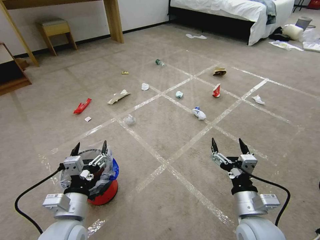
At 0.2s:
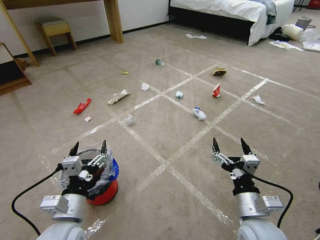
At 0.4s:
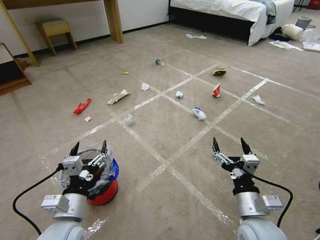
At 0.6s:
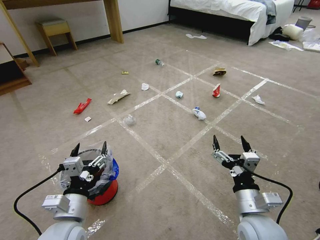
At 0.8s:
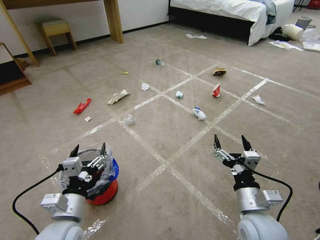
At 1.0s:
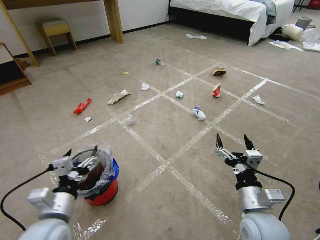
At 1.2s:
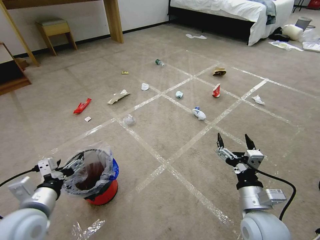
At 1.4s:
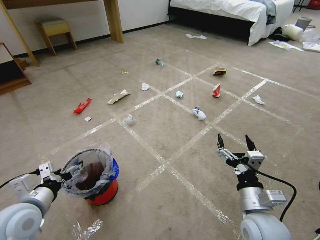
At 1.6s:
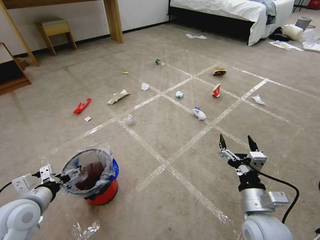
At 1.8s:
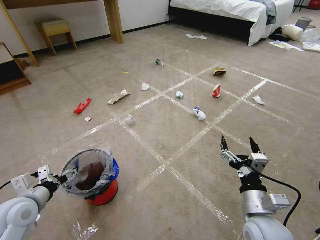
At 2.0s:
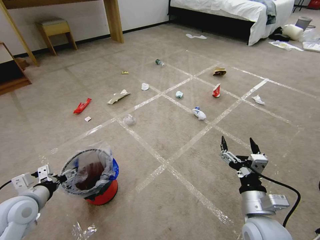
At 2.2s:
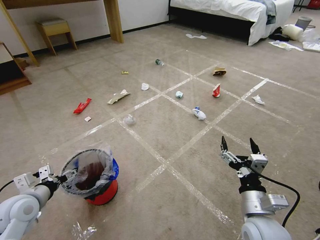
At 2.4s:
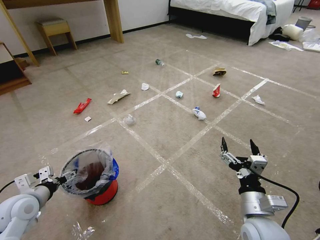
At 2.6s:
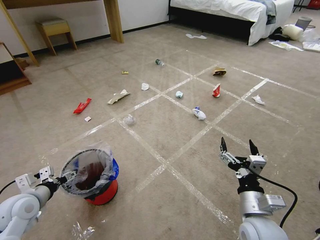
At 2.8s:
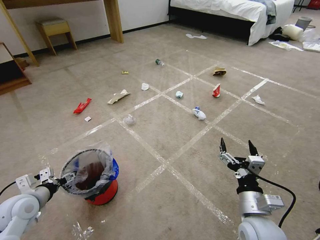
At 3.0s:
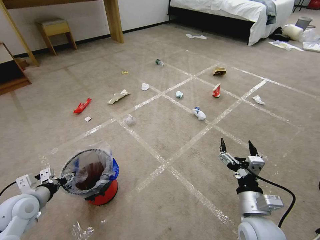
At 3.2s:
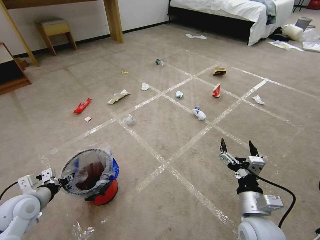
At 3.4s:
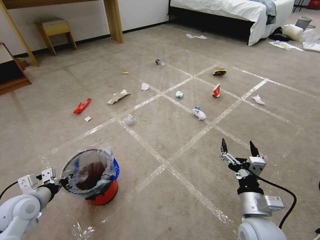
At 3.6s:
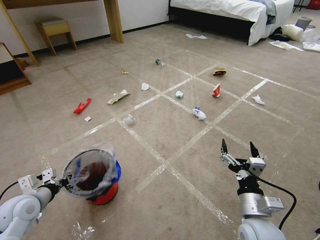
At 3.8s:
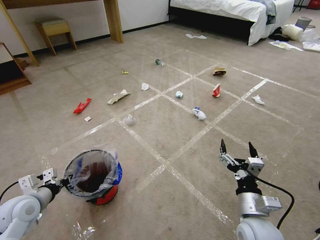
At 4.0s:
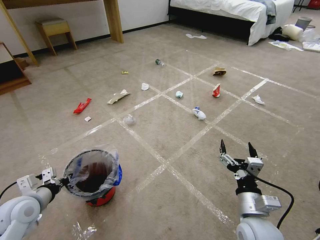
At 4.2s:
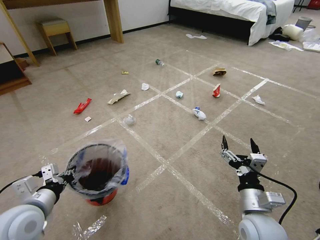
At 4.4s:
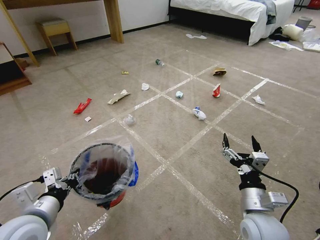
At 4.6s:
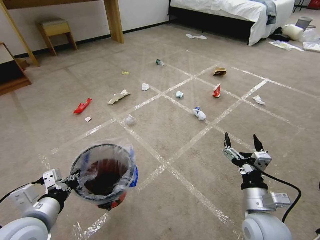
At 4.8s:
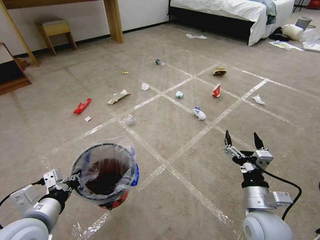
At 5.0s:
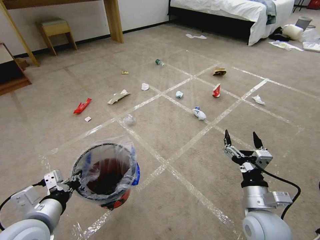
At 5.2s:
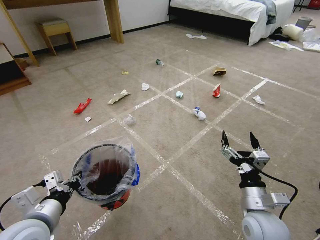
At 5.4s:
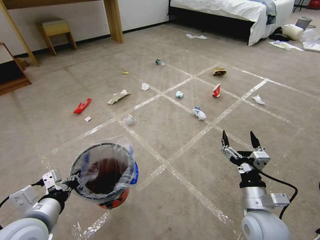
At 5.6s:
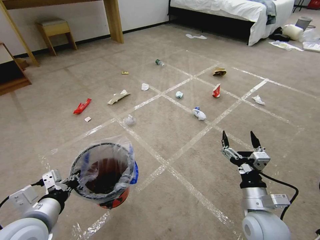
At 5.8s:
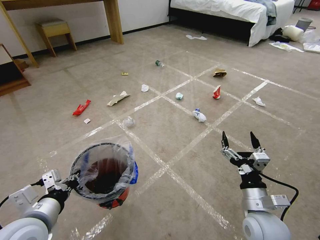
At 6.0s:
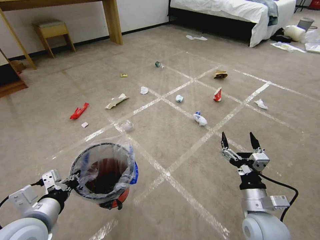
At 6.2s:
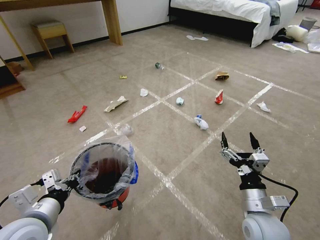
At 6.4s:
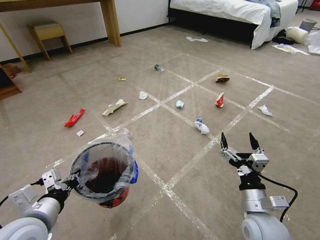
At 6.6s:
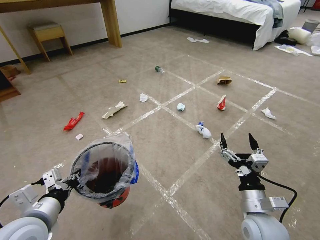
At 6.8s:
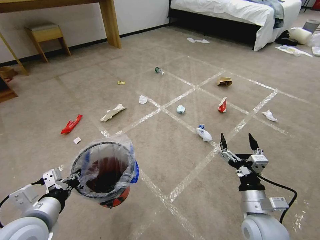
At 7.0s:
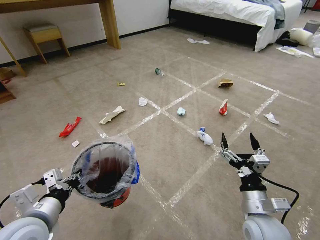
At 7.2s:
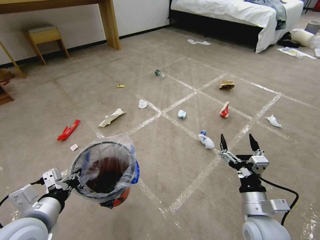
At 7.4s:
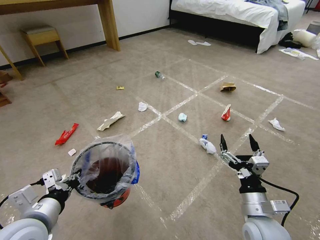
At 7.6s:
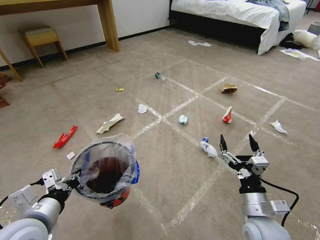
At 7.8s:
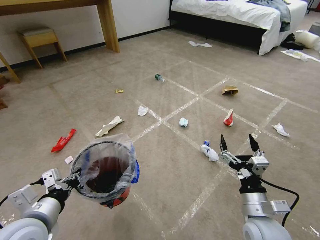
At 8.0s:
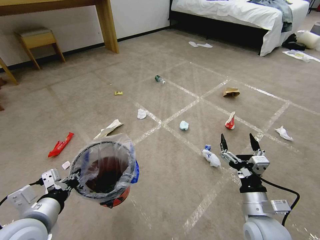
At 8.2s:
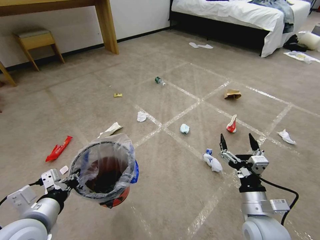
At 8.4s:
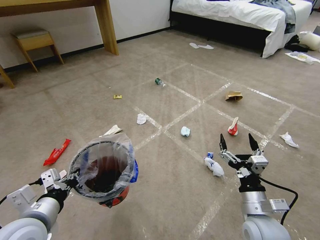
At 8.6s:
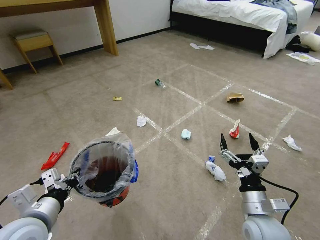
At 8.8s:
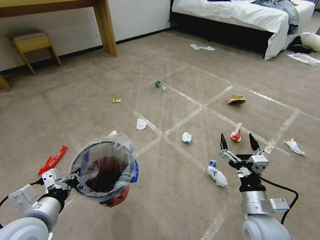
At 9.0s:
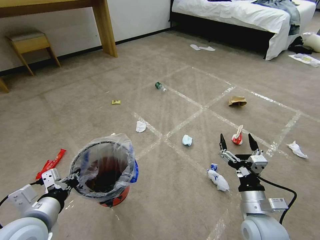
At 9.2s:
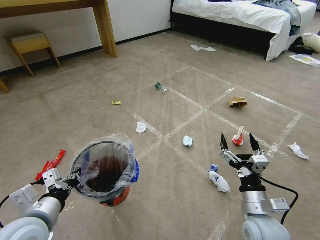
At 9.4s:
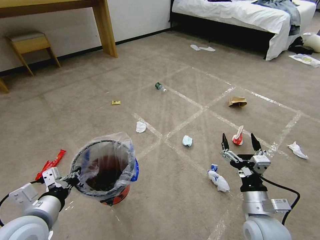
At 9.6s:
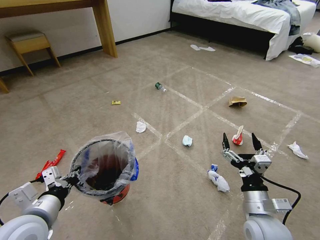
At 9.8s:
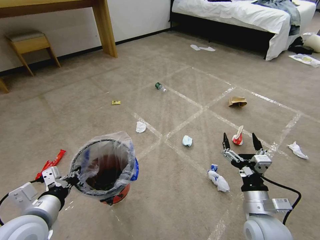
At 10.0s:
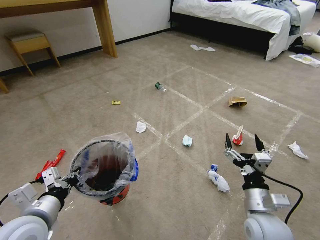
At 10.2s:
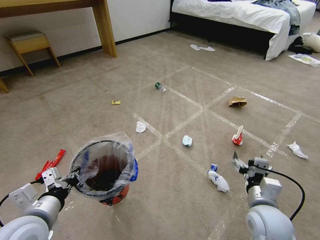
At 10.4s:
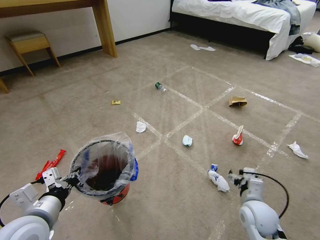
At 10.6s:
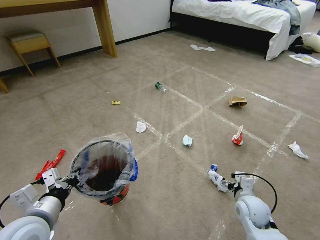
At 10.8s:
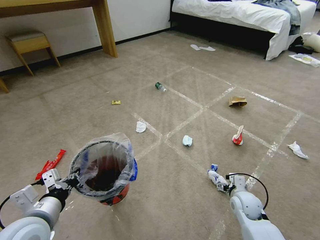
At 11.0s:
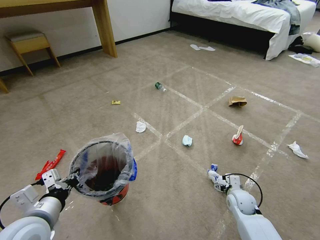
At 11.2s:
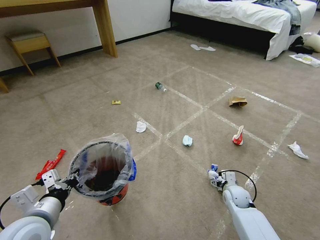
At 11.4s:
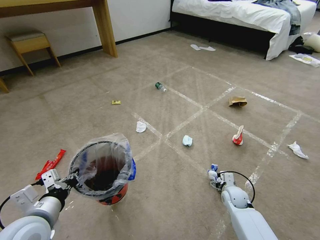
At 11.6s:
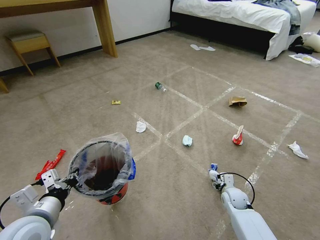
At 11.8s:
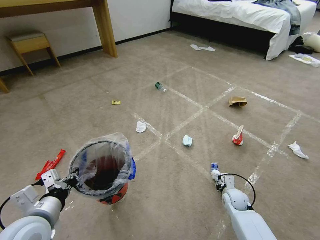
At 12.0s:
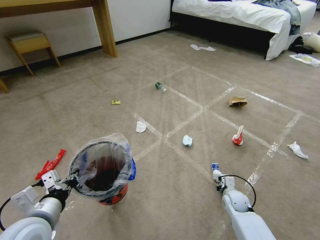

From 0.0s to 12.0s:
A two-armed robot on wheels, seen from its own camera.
Task of the whole recording: Pick up the trash bin and place the garbage on the floor into it.
From 1.6s to 3.0s: The left gripper shifts by some 5 cm, and closes up.
From 3.0s to 4.4s: The left gripper is displaced to the right, upward and backward by approximately 15 cm, and closes its fingers.
From 4.4s to 6.0s: The grippers make only small movements.
From 9.0s to 10.4s: The right gripper changes place by roughly 5 cm.
From 10.4s to 12.0s: The right gripper moves downward and forward, approximately 15 cm, and closes its fingers.

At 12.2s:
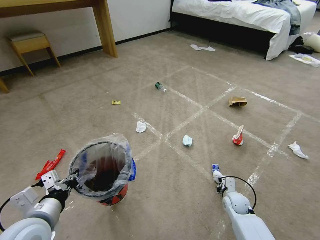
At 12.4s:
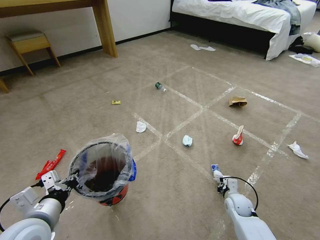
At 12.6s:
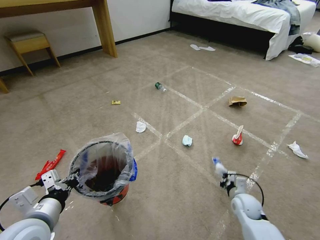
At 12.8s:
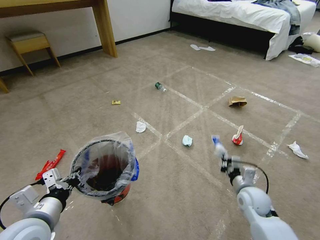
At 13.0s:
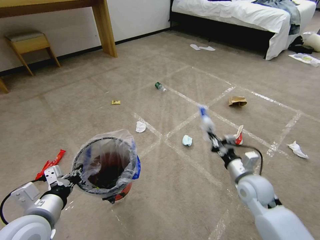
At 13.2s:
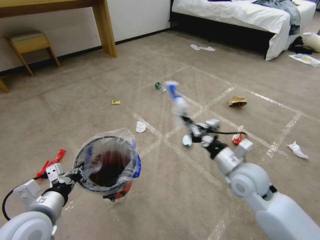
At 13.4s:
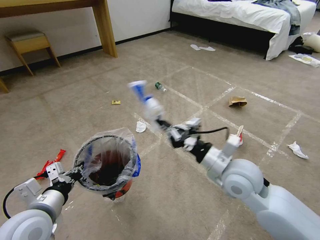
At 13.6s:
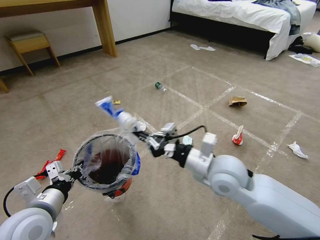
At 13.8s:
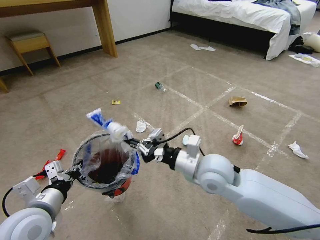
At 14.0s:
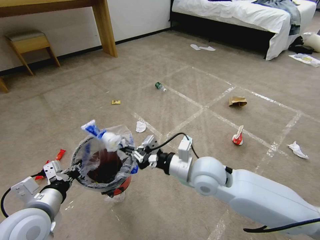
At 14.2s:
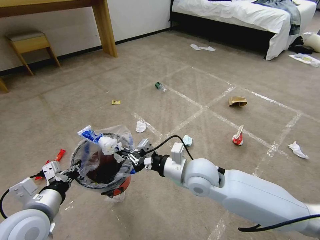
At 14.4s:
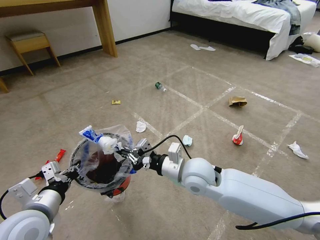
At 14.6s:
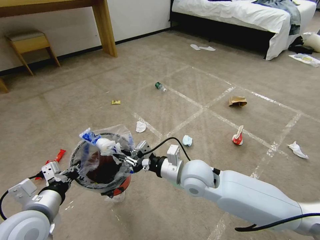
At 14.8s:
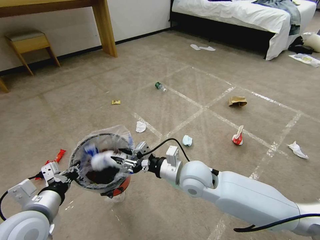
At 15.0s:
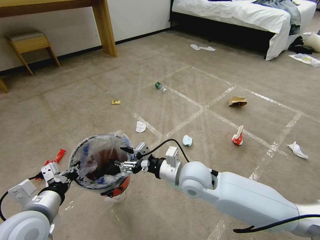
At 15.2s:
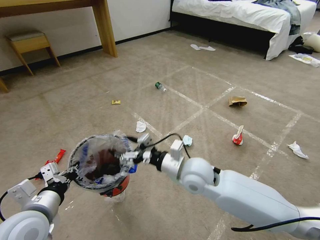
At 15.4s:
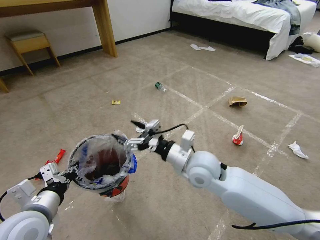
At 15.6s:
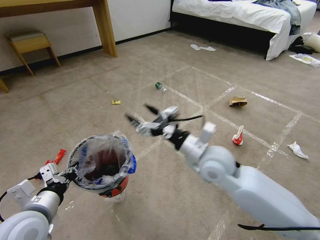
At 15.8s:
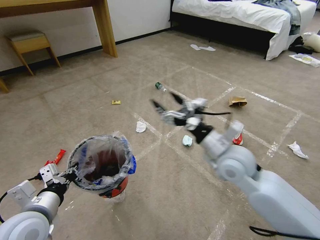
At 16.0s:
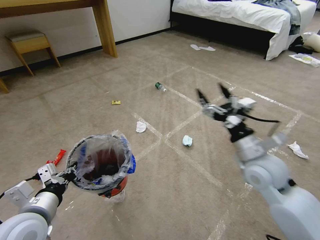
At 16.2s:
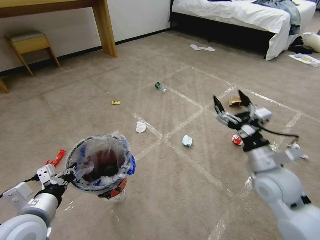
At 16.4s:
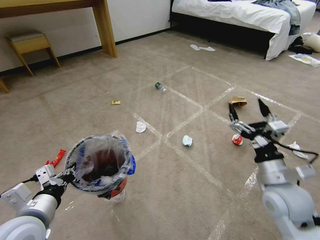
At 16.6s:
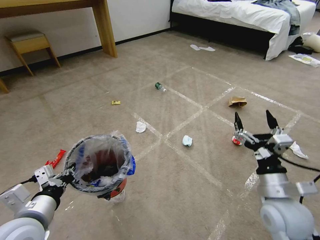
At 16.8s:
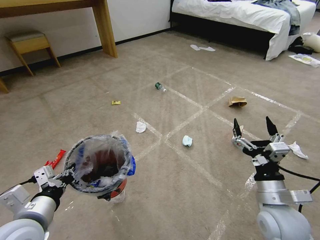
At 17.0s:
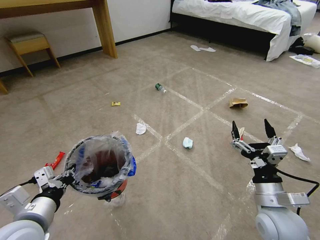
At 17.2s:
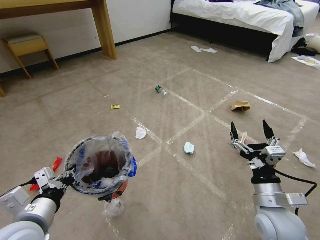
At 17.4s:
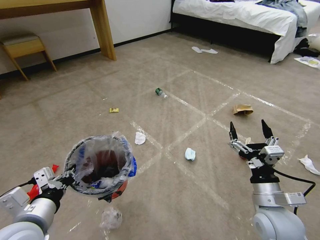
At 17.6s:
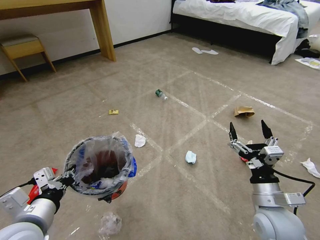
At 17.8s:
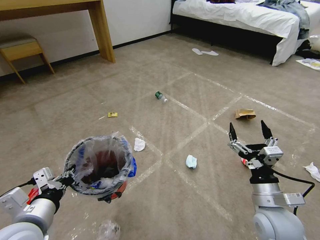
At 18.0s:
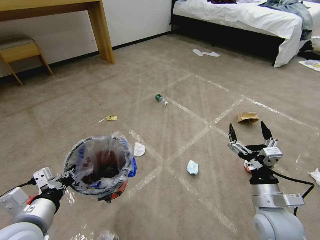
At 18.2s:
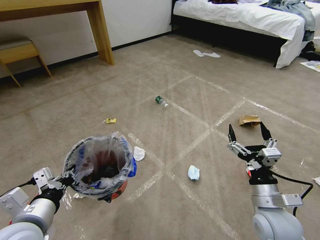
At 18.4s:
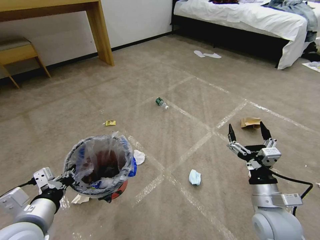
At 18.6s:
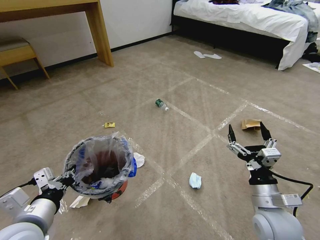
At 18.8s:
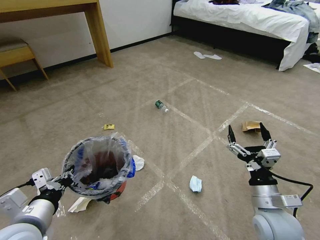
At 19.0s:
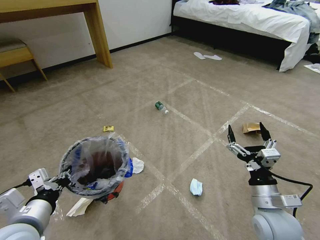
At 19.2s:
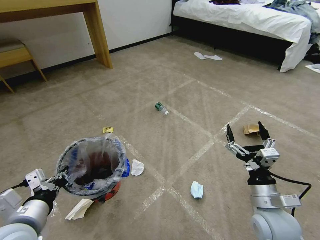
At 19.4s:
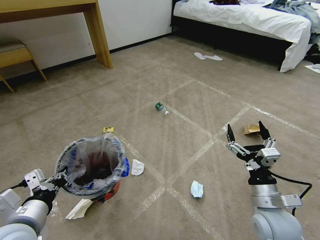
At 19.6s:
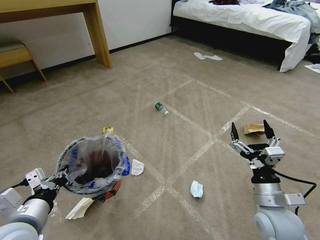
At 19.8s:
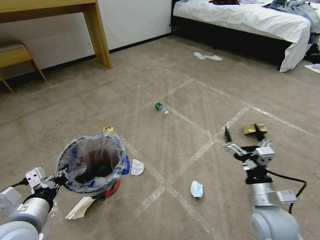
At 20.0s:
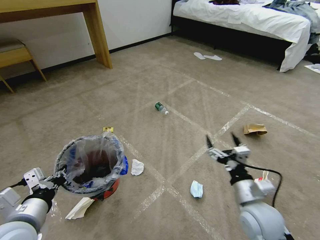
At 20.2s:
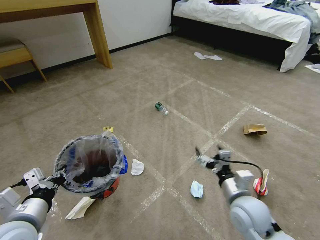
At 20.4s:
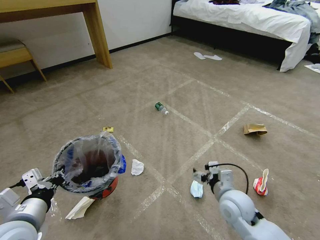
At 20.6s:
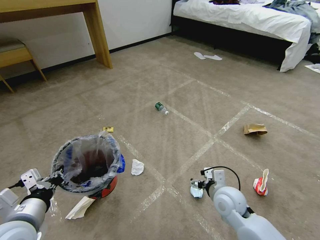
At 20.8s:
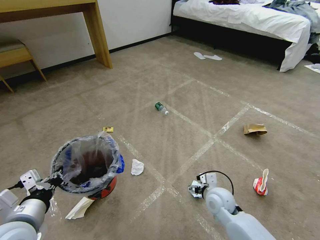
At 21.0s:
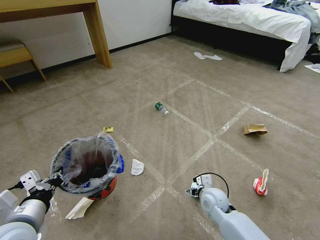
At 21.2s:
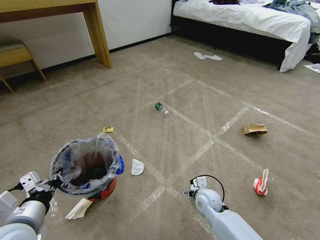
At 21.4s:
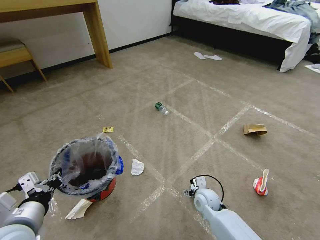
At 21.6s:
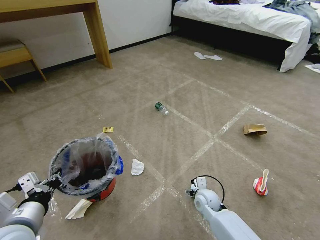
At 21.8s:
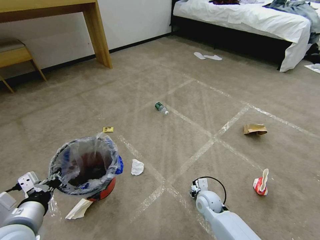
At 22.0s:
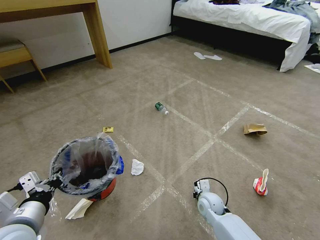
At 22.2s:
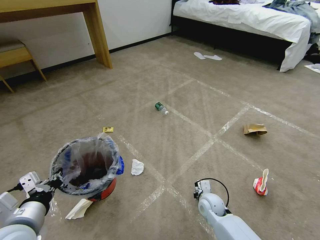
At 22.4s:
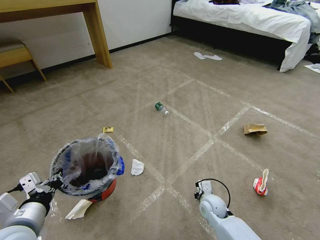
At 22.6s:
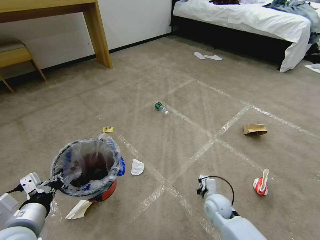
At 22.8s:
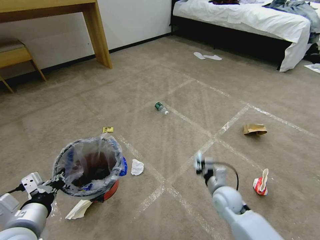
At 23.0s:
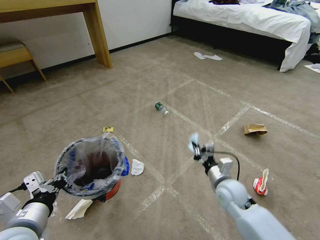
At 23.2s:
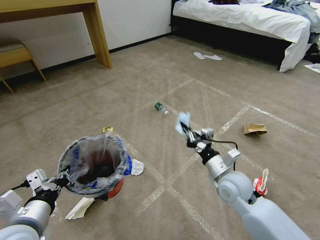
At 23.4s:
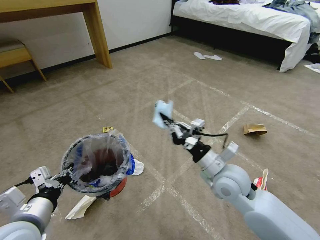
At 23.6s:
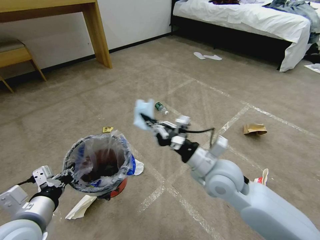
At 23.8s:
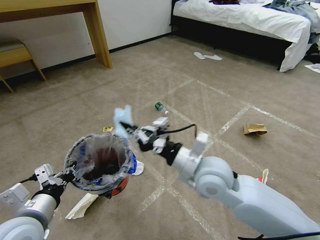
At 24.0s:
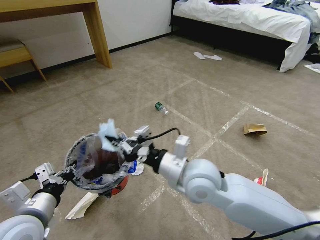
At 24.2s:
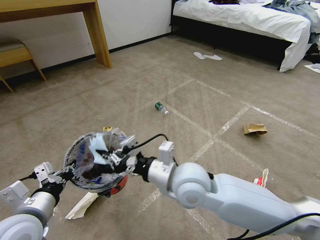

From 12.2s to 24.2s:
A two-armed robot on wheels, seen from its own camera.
Task of the whole recording: Pick up the trash bin and place the garbage on the floor into it.
From 12.2s to 13.8s: The right gripper travels upward and to the left by approximately 35 cm.
From 13.8s to 15.2s: The right gripper shifts by approximately 5 cm, and opens.
From 15.2s to 16.6s: The right gripper goes some 25 cm to the right and backward.
From 19.8s to 21.2s: The right gripper travels downward, forward and to the left by about 20 cm.
From 21.2s to 22.6s: The right gripper closes.
From 22.6s to 24.2s: The right gripper is displaced upward and to the left by roughly 30 cm.
